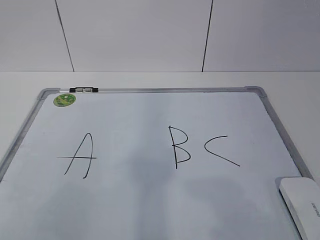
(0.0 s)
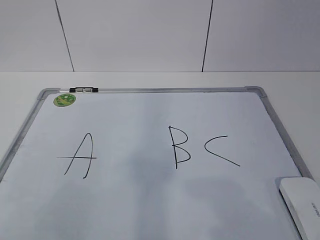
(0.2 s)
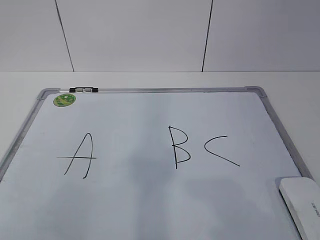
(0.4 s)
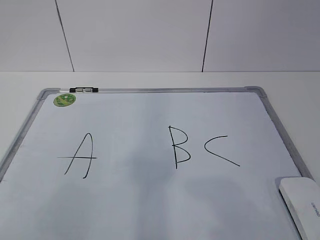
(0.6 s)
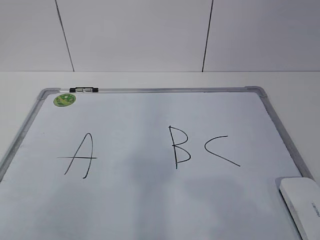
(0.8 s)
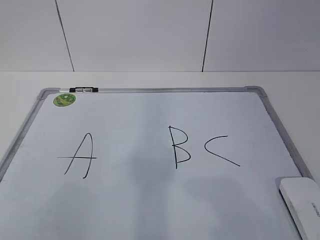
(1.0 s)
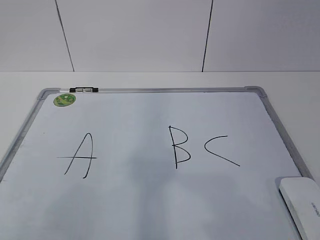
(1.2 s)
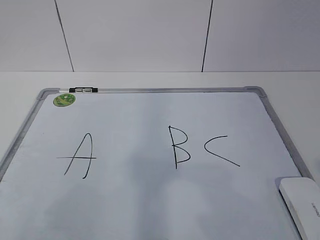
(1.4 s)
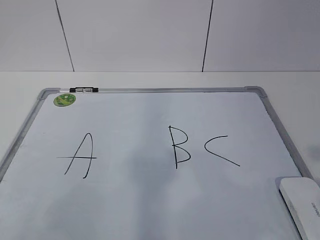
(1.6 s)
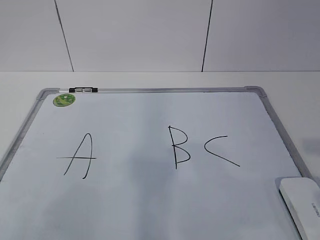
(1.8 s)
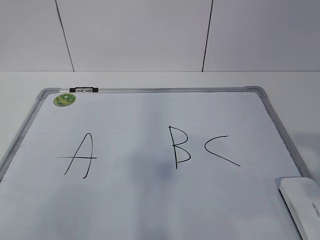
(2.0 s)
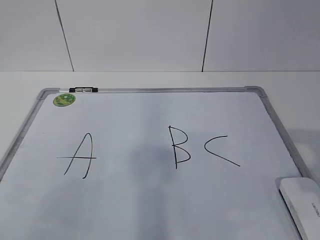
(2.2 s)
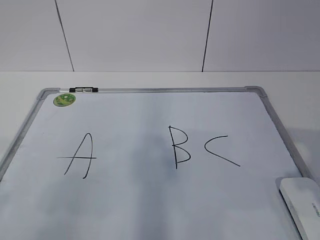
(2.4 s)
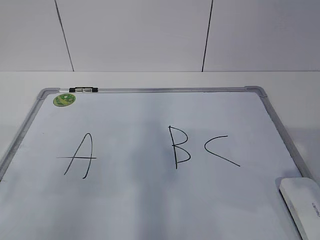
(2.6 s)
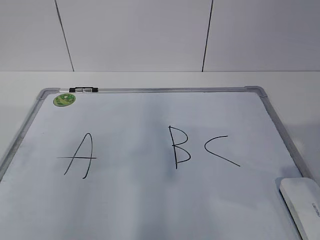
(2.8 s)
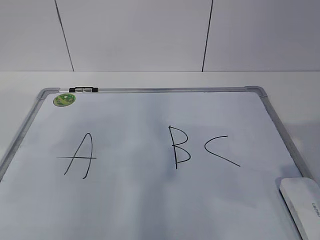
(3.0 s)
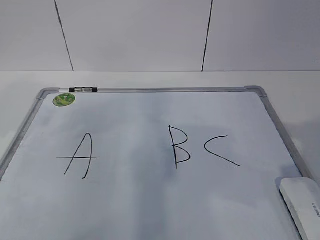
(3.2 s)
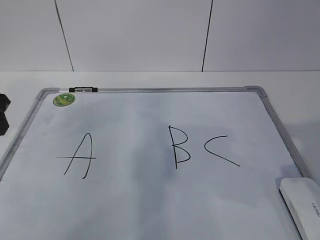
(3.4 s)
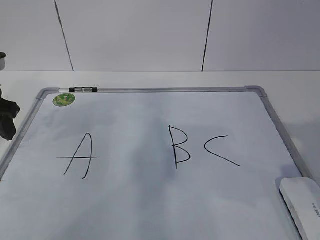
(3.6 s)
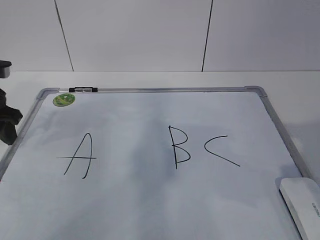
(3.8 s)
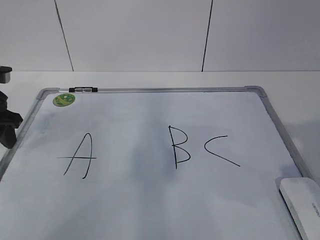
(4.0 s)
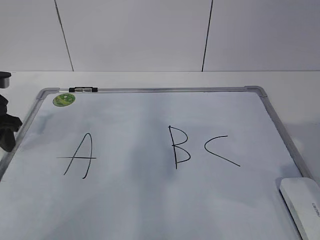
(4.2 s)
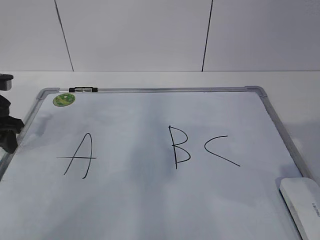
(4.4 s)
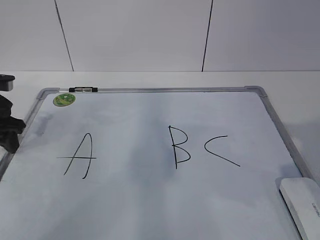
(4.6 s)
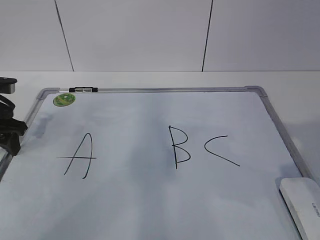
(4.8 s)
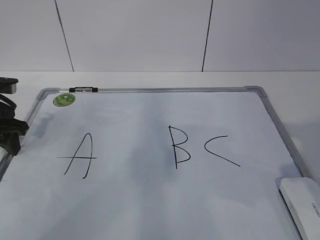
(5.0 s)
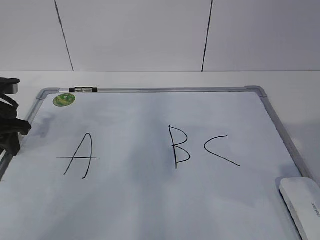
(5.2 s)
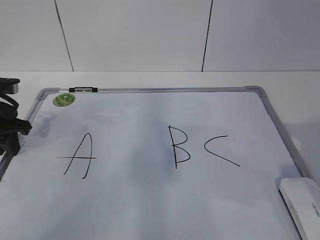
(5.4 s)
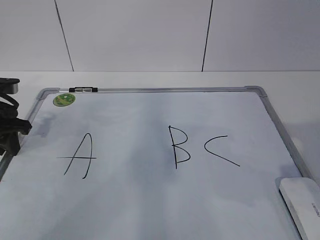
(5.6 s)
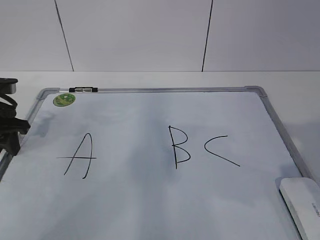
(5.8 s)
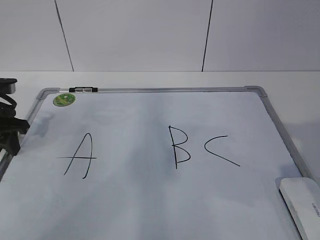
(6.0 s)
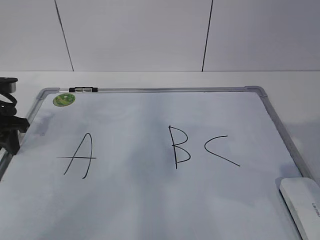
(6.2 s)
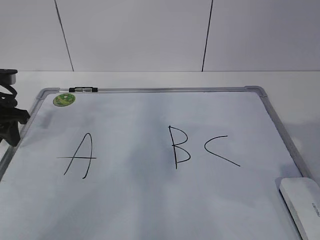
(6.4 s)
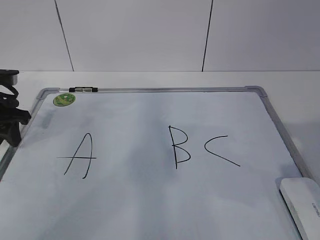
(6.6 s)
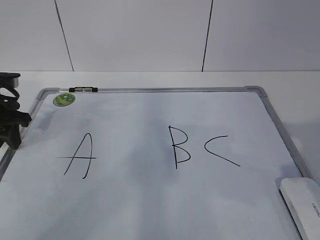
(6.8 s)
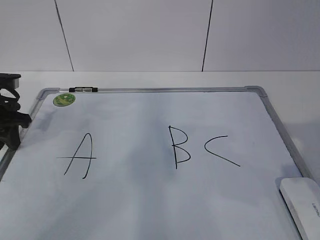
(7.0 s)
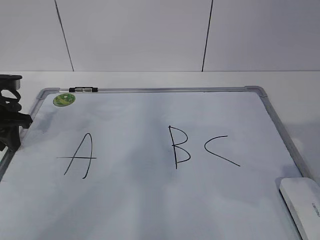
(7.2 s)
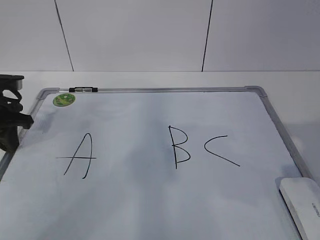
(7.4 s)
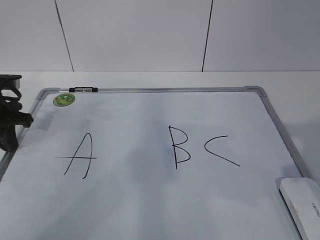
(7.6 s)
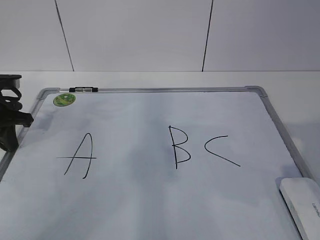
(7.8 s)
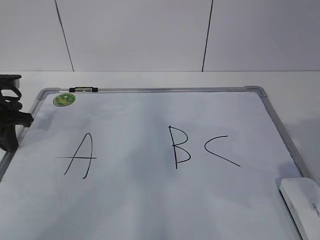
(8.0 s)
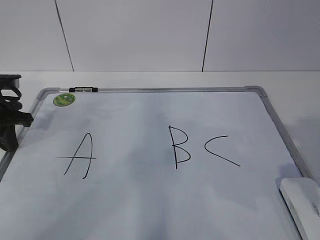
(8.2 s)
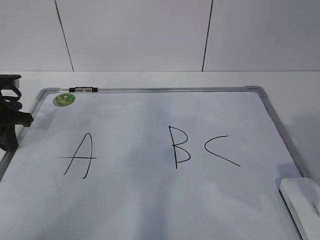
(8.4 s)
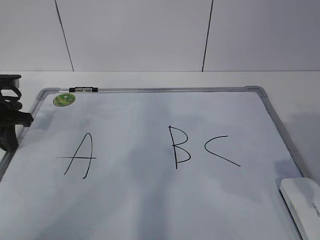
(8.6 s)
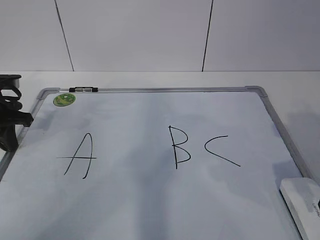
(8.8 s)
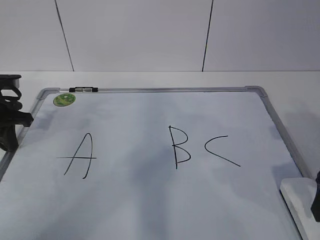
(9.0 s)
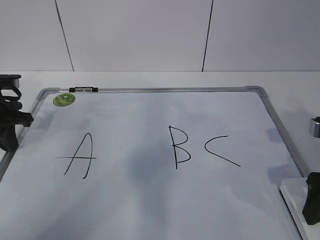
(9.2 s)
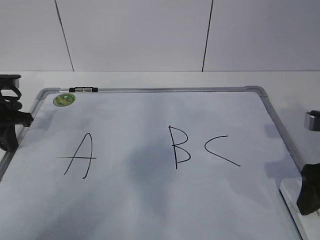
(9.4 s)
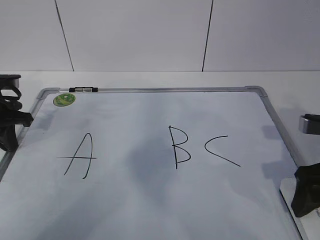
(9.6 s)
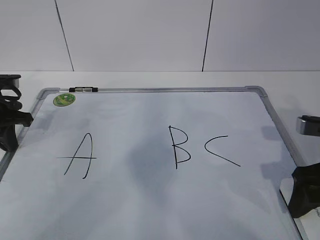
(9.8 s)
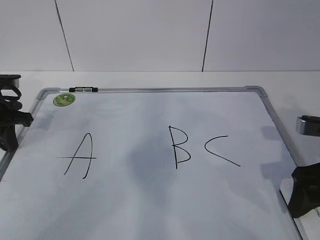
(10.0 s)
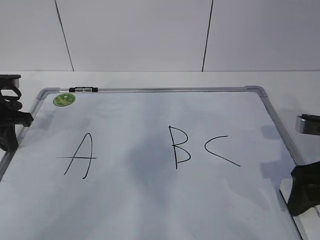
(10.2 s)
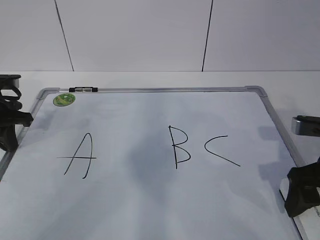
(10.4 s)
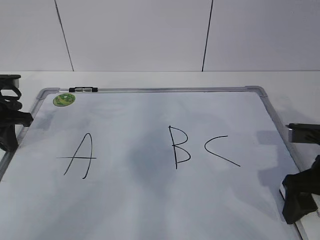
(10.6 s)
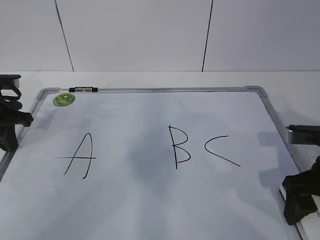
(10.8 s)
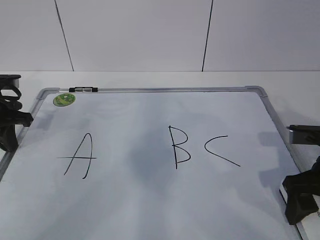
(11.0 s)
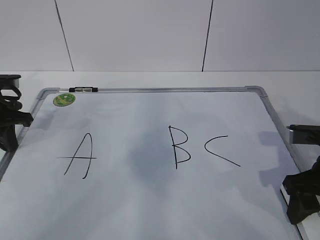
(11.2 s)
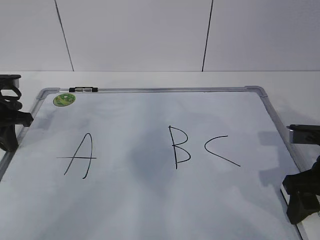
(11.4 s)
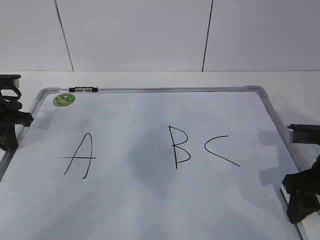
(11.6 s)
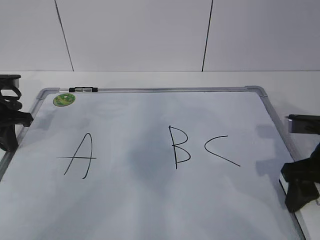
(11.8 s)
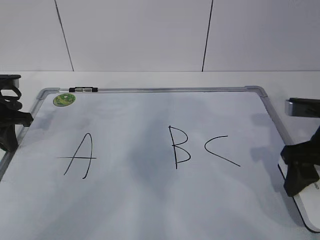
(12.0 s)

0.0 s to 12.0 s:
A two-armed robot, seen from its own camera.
Task of the whole recording: pick up the eraser on the blackboard and erase the letter "B".
Step, 6.4 to 9.6 s: Grab the eraser with your right hand.
3.0 to 4.4 s: The left gripper moves forward and downward, approximately 20 cm.
4.4 to 6.0 s: The grippers move only a little.
6.0 to 7.6 s: The left gripper closes.
7.6 to 9.0 s: The right gripper goes roughly 10 cm forward and downward, and opens up.
9.0 to 10.4 s: The grippers stay close to where they were, moving slightly.
10.4 to 12.0 s: The right gripper closes up.

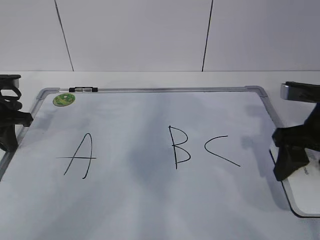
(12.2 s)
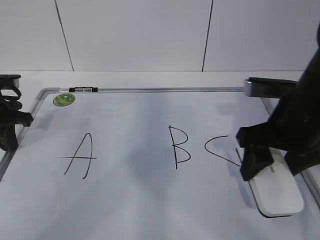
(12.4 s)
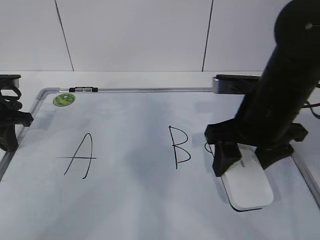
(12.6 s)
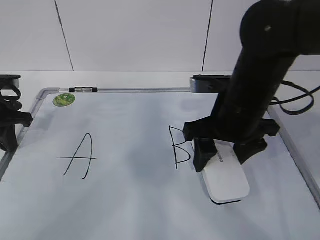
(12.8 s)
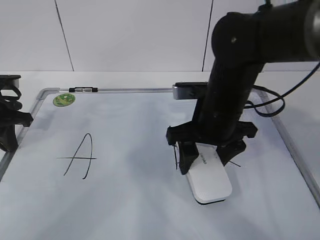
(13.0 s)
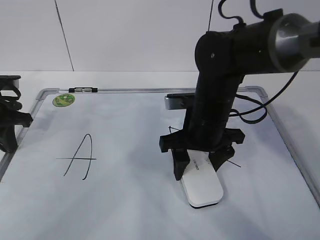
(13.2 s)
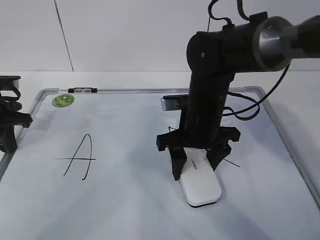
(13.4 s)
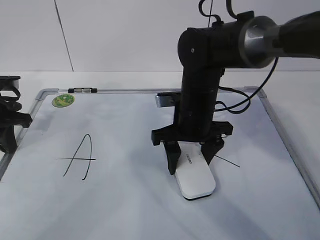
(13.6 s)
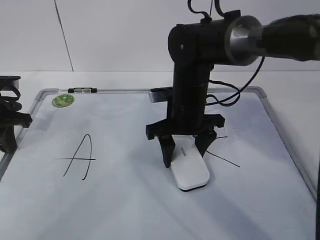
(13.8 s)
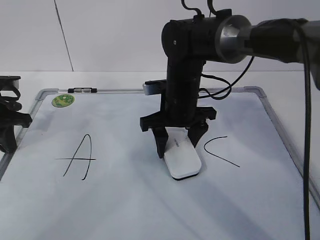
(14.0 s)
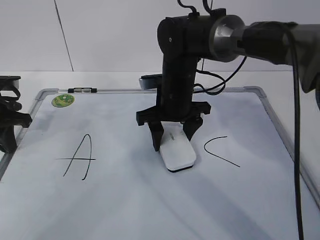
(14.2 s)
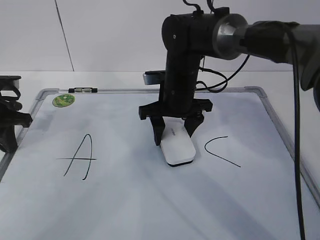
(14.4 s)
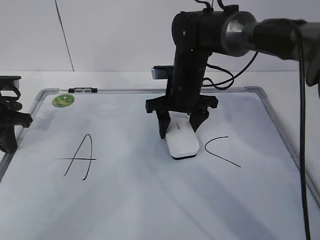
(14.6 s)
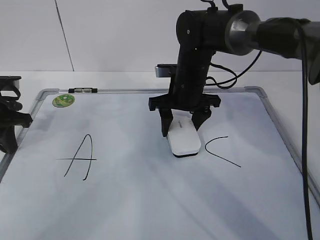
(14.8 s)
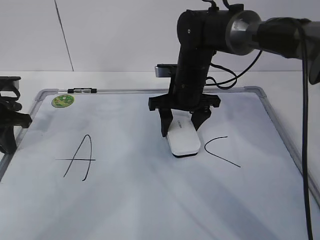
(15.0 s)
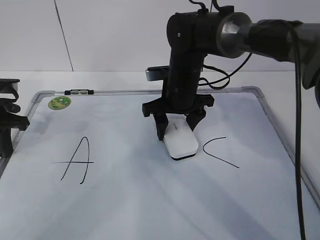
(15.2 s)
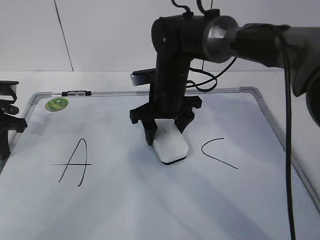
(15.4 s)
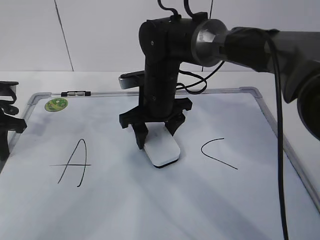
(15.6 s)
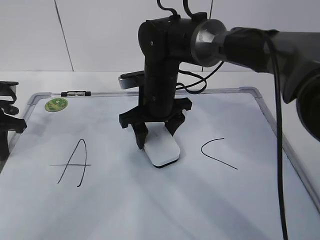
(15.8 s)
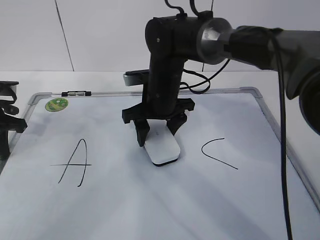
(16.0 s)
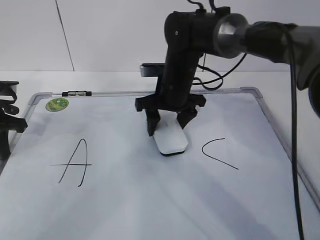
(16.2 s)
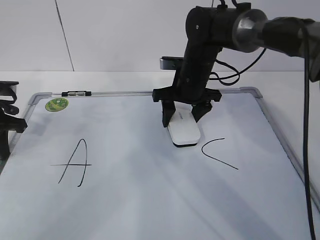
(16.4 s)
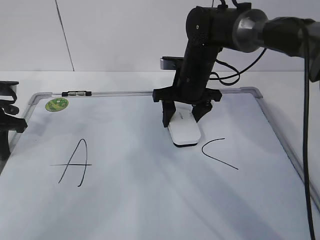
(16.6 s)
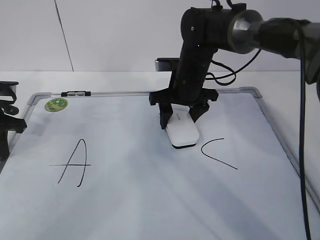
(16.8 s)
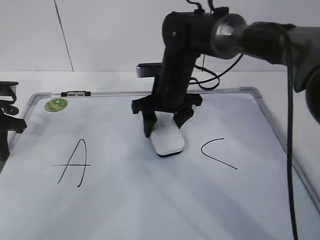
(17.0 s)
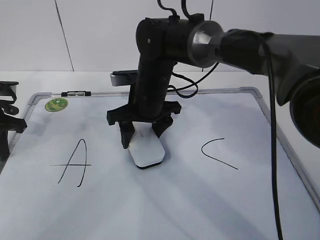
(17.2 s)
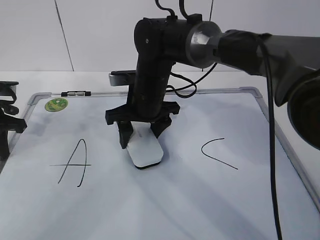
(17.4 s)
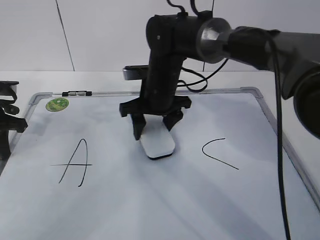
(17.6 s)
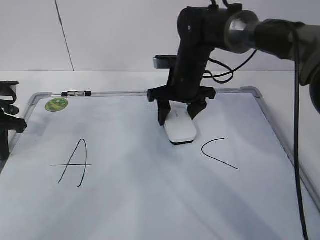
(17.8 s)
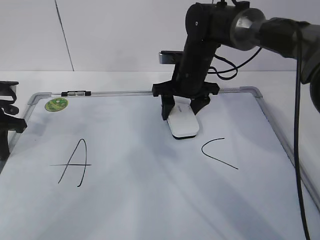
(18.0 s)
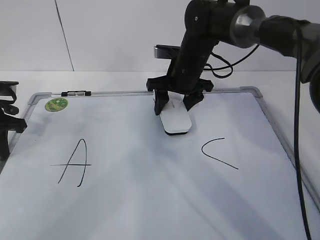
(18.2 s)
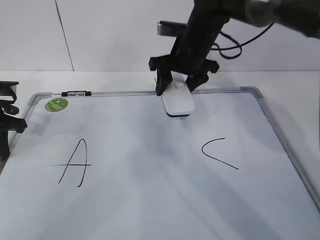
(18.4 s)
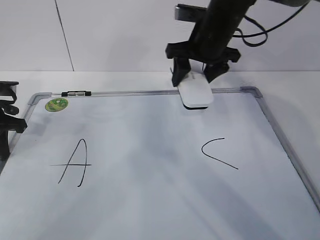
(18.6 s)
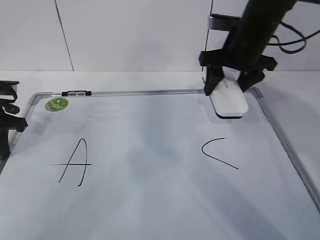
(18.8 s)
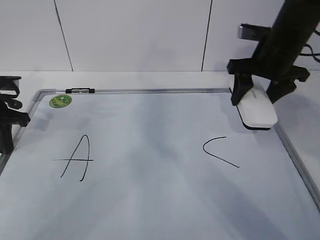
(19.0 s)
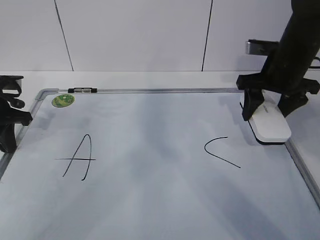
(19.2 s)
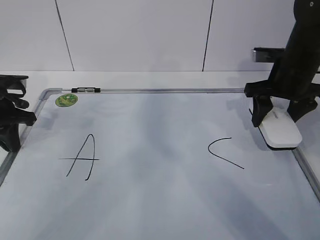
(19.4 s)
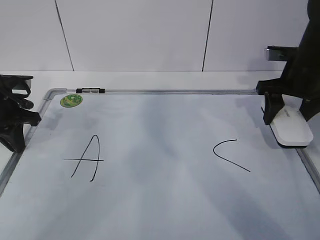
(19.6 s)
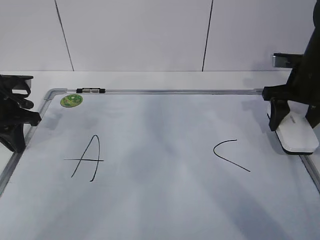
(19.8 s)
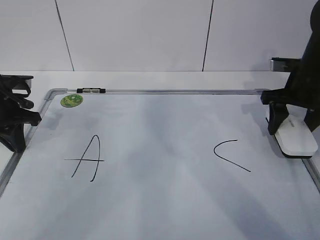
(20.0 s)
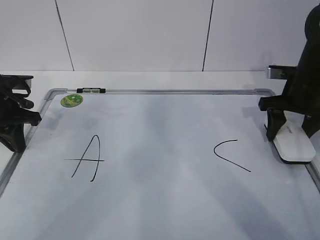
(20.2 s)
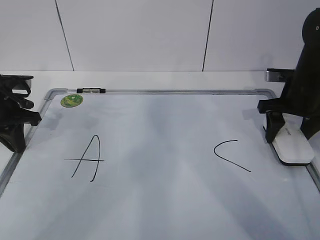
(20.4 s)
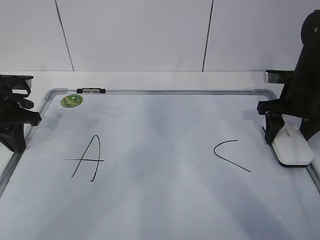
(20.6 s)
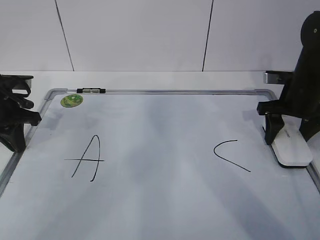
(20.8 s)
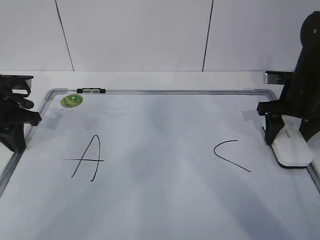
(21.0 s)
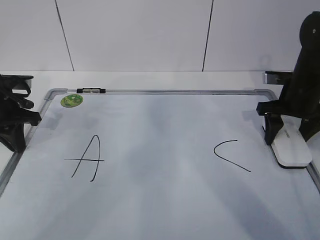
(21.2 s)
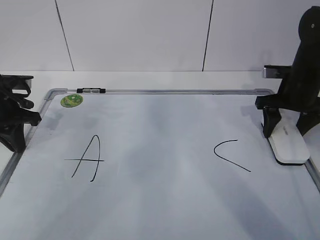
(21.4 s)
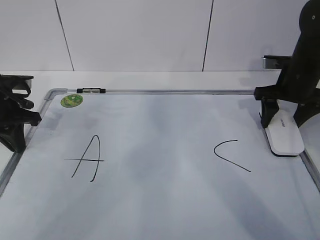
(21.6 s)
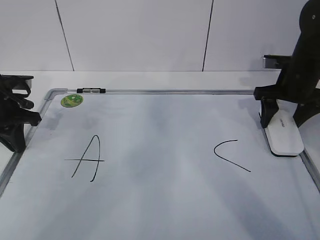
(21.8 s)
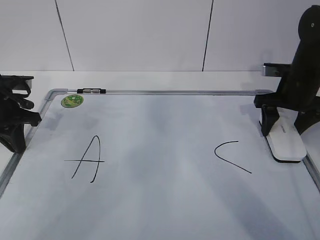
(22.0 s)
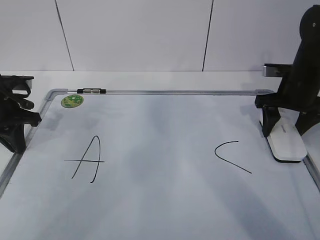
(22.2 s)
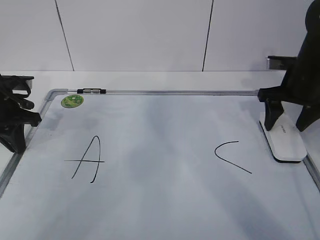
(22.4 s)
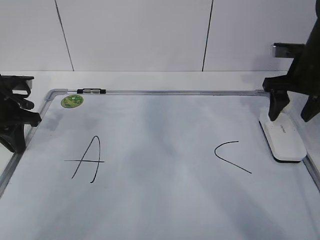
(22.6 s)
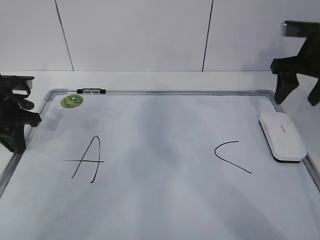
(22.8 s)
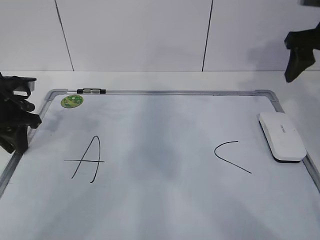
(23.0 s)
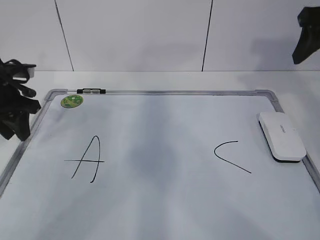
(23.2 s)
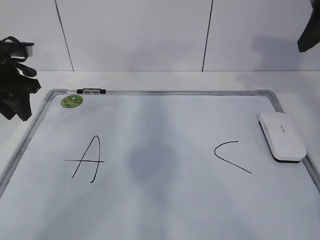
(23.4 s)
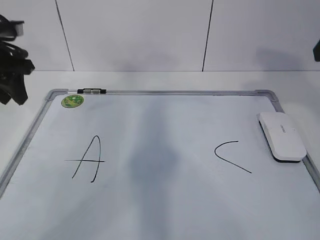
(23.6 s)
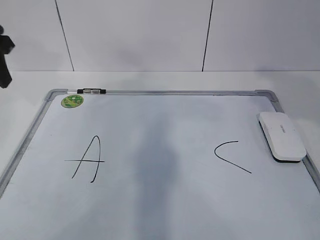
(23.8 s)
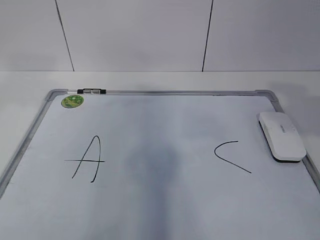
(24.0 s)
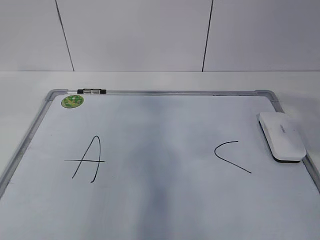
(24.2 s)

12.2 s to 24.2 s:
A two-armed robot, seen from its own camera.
Task of the whole recording: pick up the eraser on the blackboard and erase the letter "B".
Step, 12.2 to 15.0 s: Erase the letter B with your right hand.
Step, 15.2 to 18.2 s: Put down the eraser with your right hand.
12.2 to 13.8 s: The right gripper heads to the left and forward, covering approximately 20 cm.
13.8 to 15.2 s: The grippers move only a little.
15.2 to 16.6 s: There are only small adjustments of the grippers.
16.6 to 18.2 s: The right gripper travels to the left and back again, approximately 10 cm each way.
18.2 to 19.8 s: The right gripper heads to the right, covering roughly 20 cm.
19.8 to 22.6 s: The grippers move only a little.
22.6 to 24.2 s: The right gripper moves backward and upward, roughly 30 cm; the left gripper is displaced upward and backward by roughly 25 cm, and opens up.
